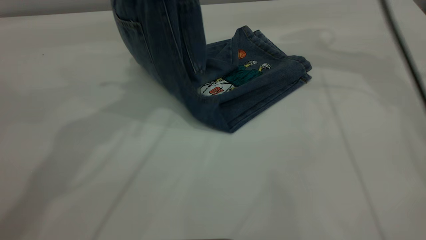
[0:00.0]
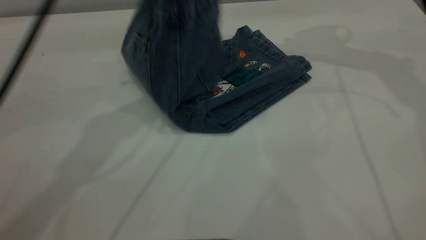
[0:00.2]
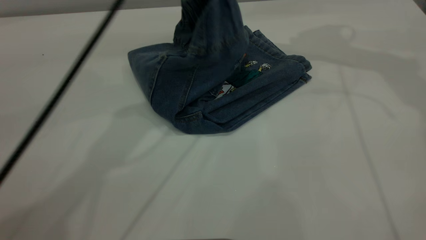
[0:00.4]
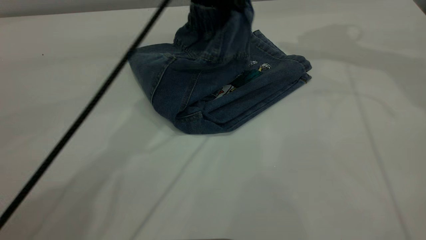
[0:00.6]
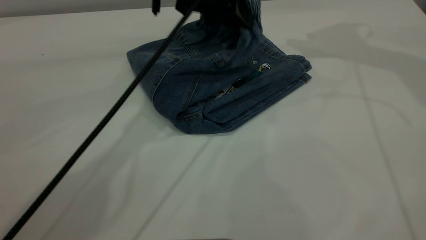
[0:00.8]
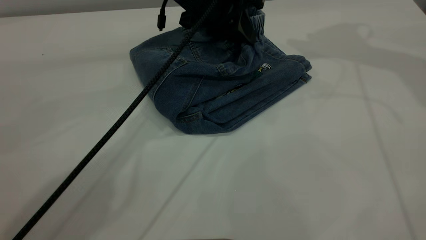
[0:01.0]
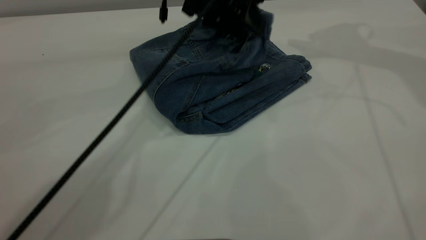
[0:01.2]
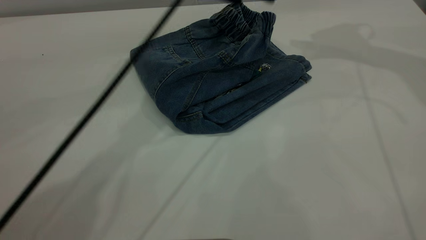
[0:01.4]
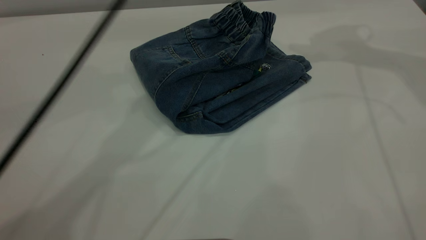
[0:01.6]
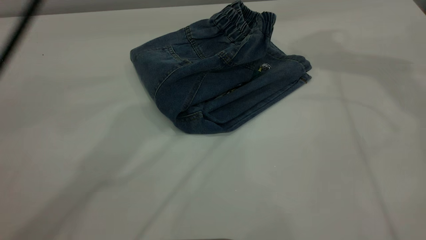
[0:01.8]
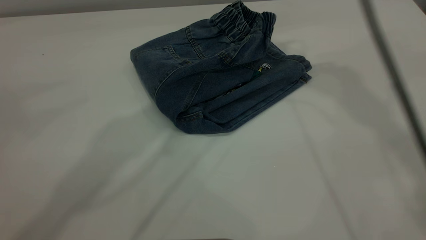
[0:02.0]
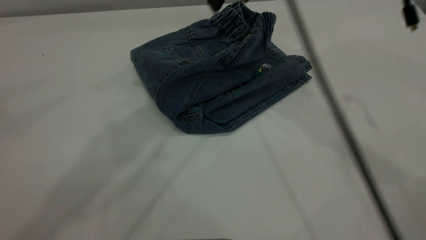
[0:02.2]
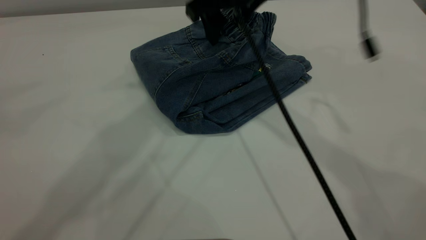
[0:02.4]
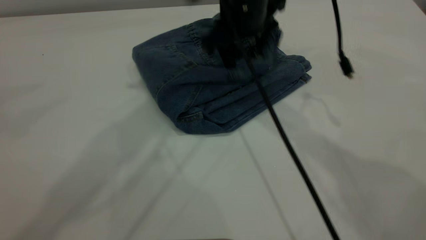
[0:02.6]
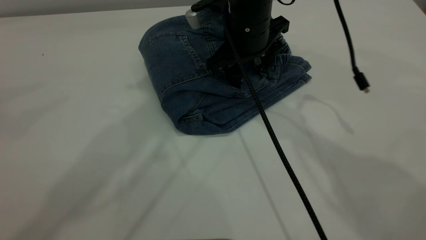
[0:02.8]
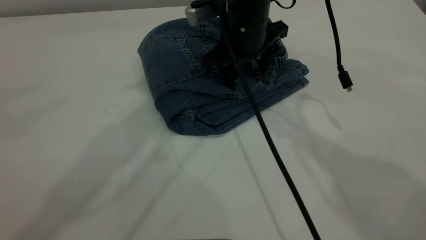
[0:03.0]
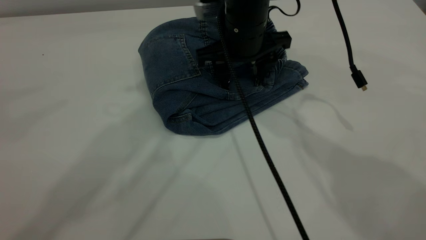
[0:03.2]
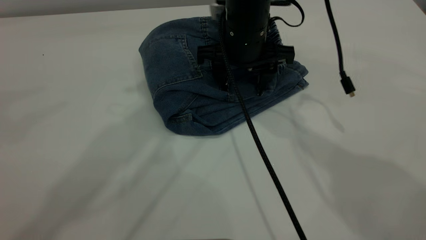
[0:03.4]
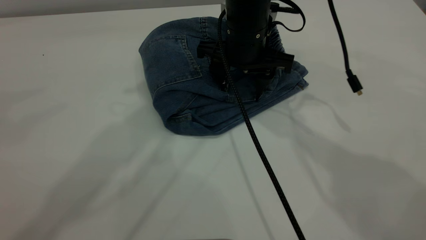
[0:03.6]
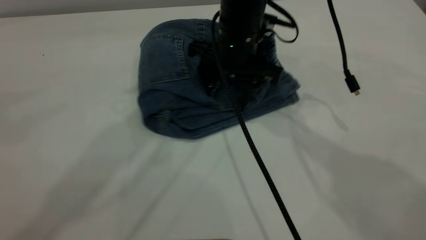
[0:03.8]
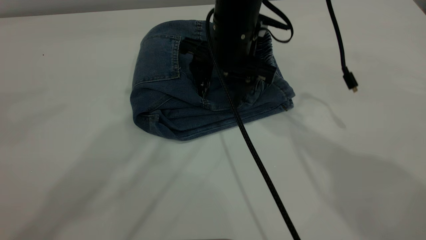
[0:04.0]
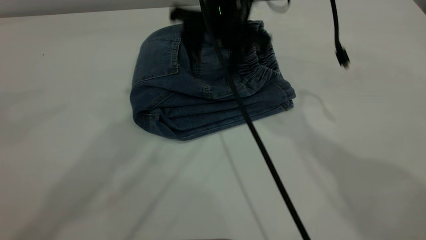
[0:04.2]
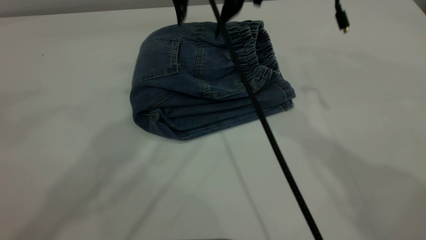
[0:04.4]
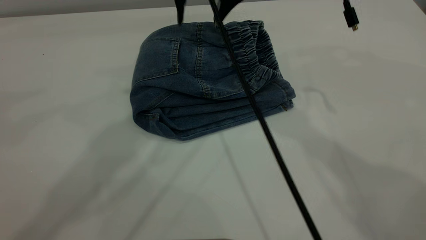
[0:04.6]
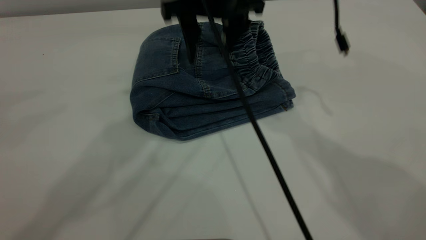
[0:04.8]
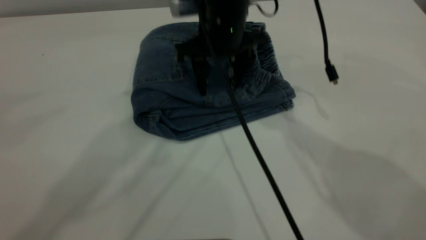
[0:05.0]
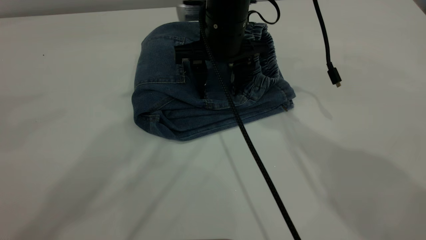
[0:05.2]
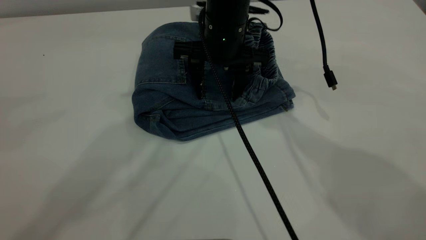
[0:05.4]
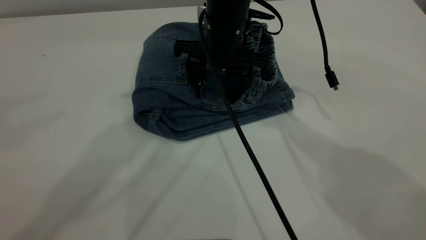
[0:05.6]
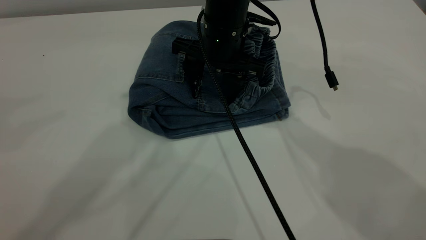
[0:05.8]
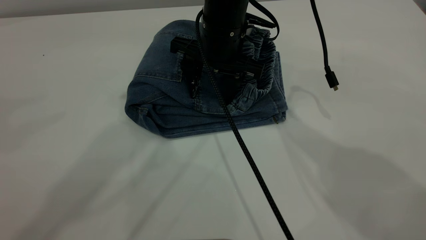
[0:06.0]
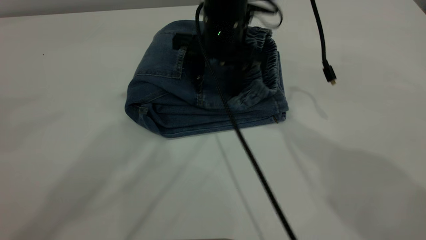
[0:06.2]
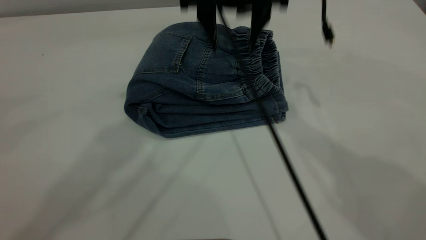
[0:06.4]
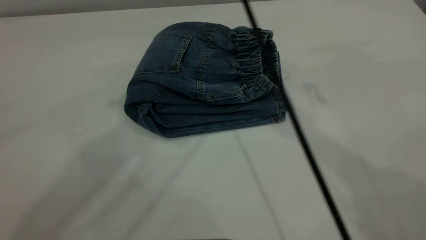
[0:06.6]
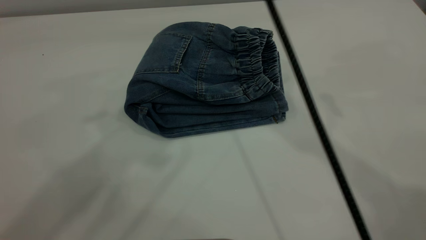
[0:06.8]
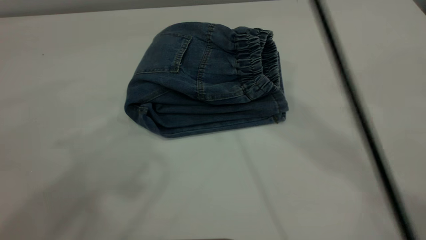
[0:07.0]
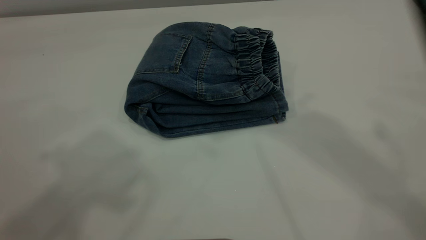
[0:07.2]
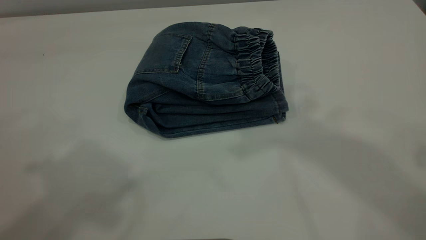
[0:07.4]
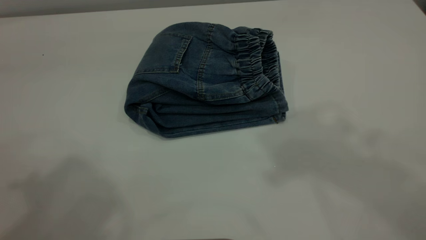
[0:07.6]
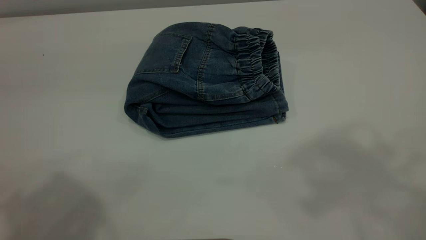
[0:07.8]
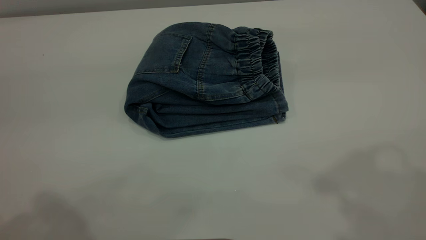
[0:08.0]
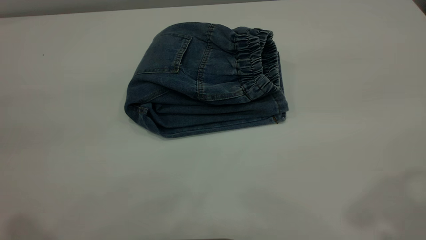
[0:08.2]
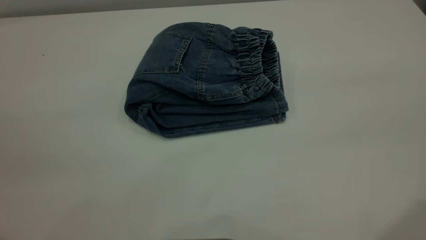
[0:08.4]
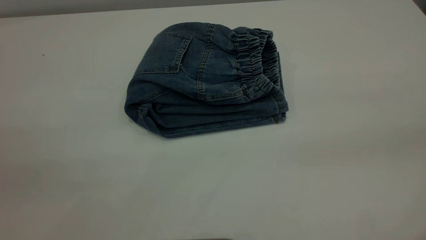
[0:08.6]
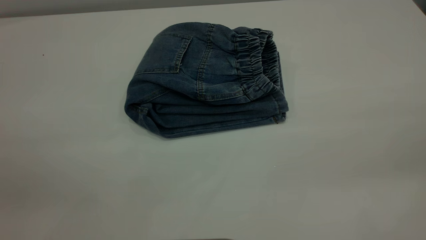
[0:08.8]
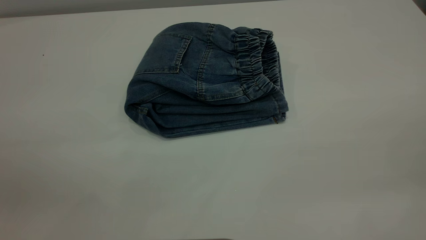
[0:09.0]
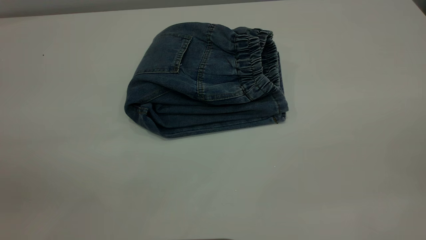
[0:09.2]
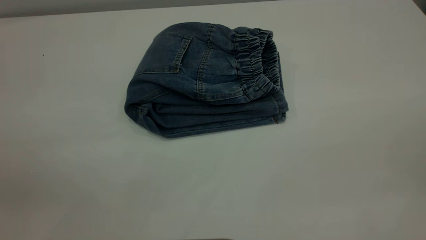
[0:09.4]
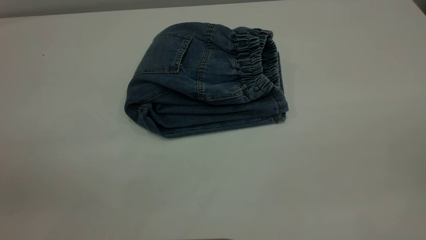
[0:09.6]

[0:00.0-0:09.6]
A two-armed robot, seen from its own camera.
0.0 to 1.6 s: The left gripper moves to the right, some 10 cm, moves about 15 cm downward and comes back, and opens, while the right gripper ends up some 5 cm from where it was.
1.6 to 3.2 s: The right gripper travels to the left and downward by roughly 25 cm. Meanwhile the left gripper moves upward, to the left and backward, some 10 cm.
4.8 to 6.4 s: The right gripper heads upward, covering approximately 5 cm.
6.4 to 8.0 s: The right gripper moves backward, upward and to the right, approximately 35 cm, while the left gripper travels backward and to the left by roughly 25 cm.

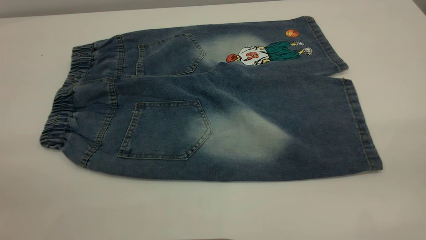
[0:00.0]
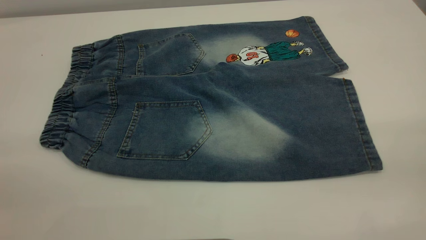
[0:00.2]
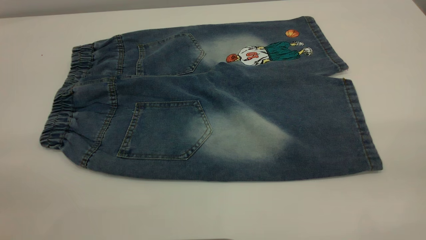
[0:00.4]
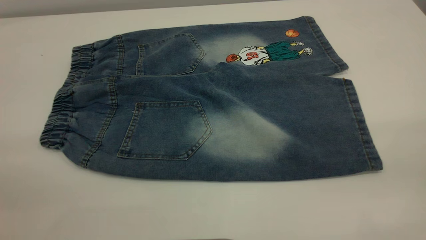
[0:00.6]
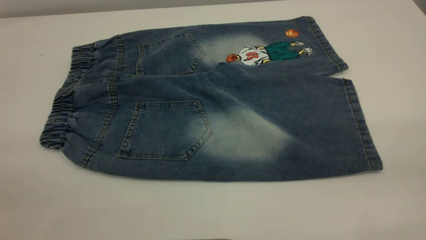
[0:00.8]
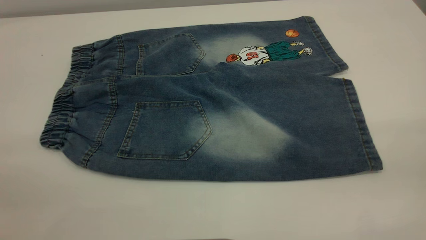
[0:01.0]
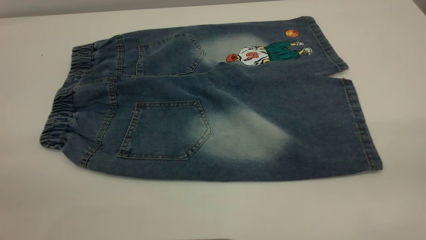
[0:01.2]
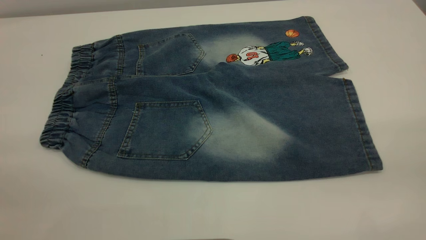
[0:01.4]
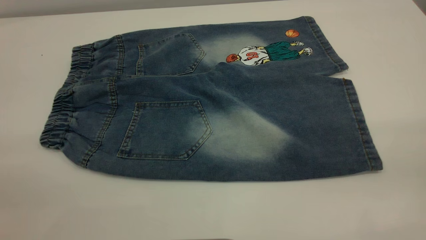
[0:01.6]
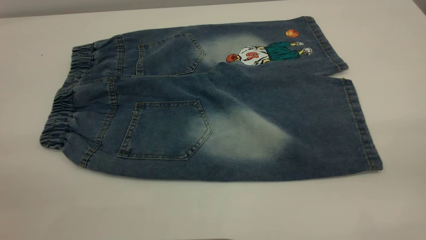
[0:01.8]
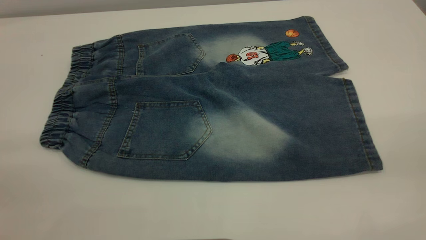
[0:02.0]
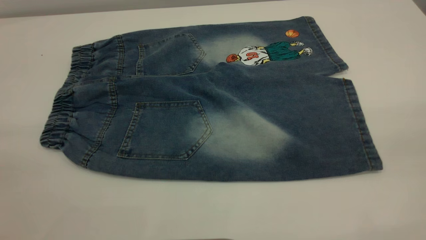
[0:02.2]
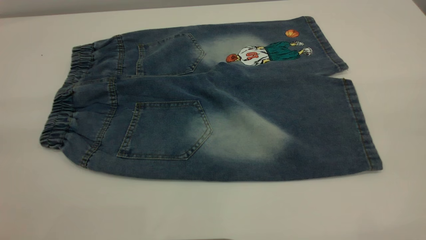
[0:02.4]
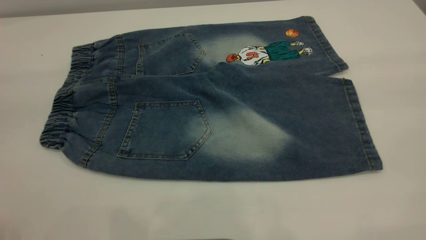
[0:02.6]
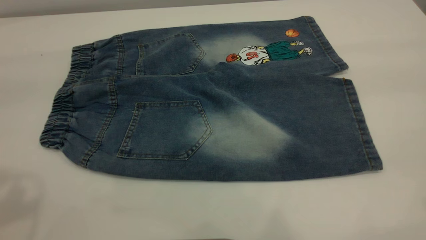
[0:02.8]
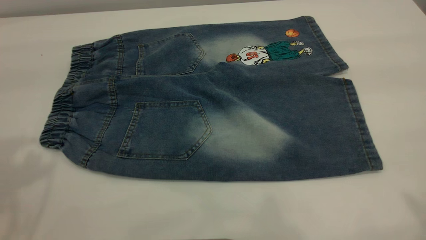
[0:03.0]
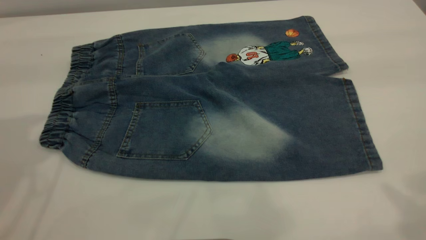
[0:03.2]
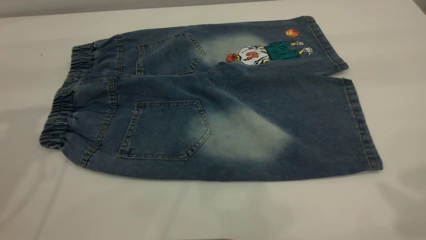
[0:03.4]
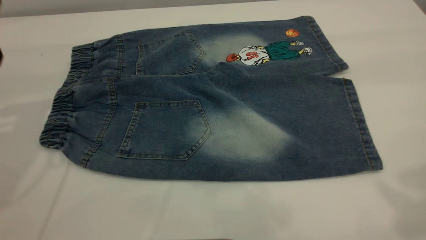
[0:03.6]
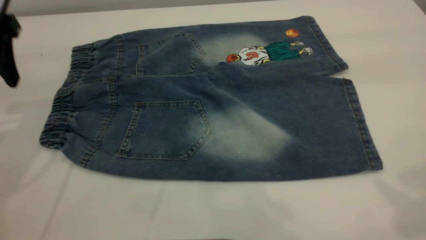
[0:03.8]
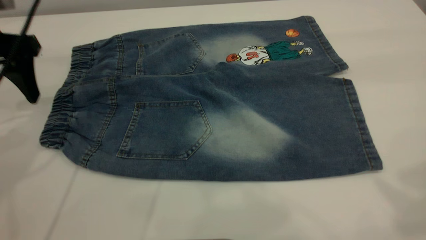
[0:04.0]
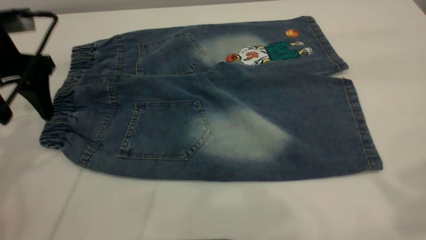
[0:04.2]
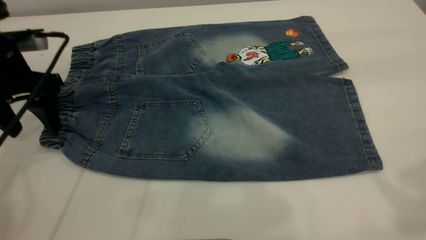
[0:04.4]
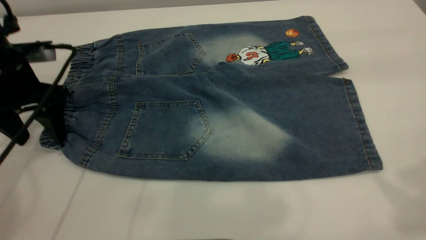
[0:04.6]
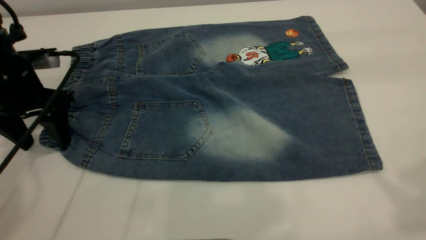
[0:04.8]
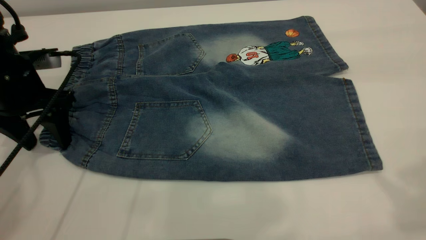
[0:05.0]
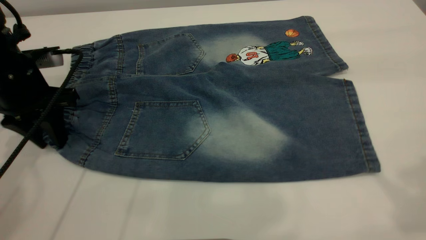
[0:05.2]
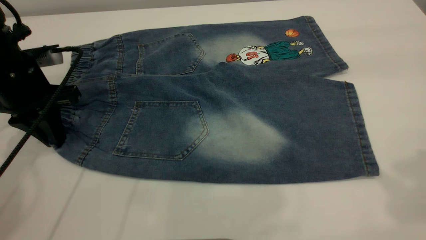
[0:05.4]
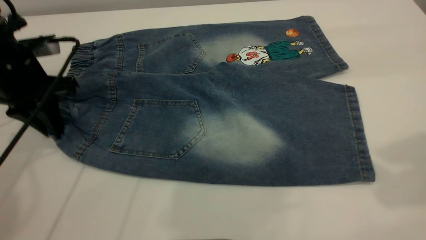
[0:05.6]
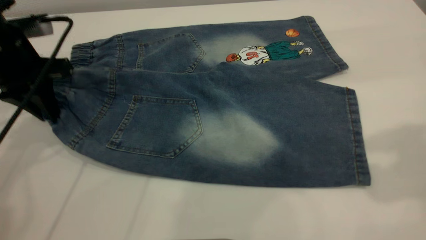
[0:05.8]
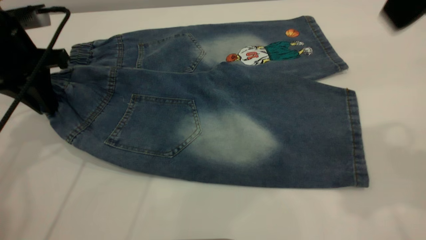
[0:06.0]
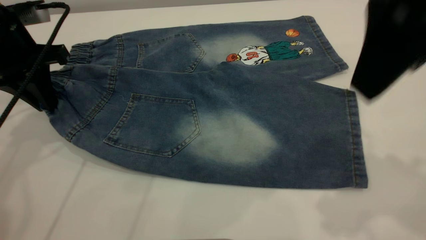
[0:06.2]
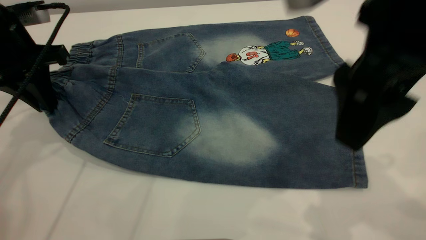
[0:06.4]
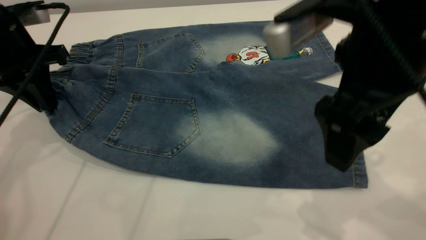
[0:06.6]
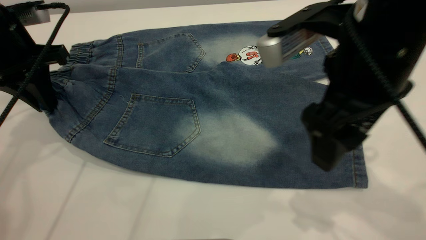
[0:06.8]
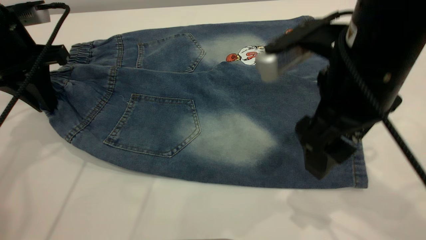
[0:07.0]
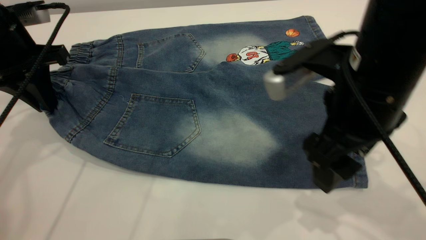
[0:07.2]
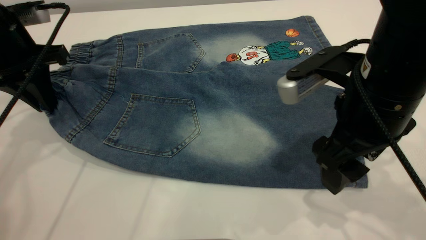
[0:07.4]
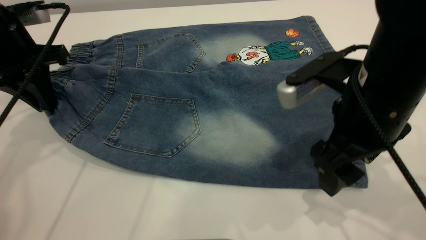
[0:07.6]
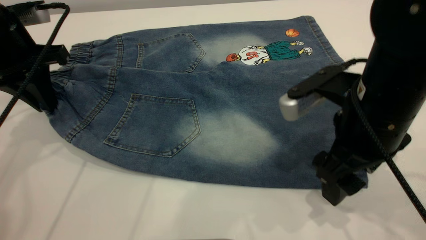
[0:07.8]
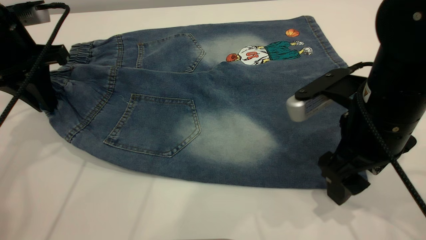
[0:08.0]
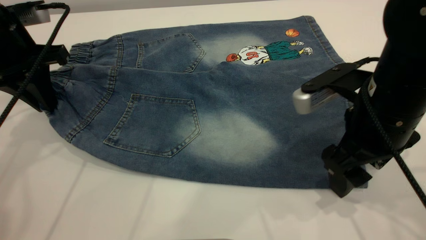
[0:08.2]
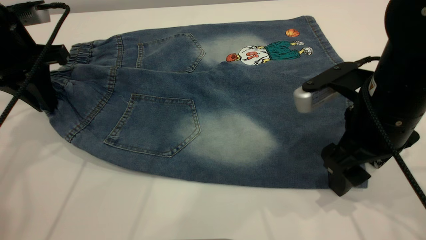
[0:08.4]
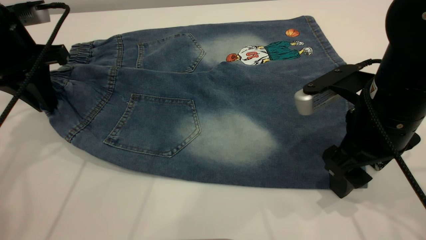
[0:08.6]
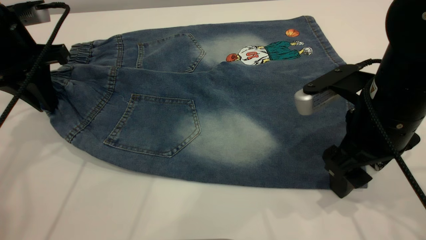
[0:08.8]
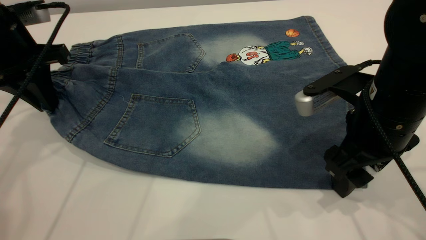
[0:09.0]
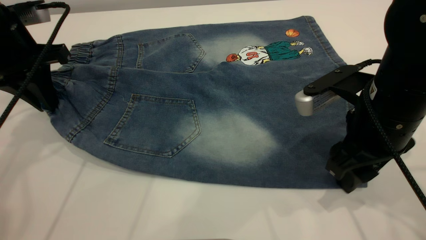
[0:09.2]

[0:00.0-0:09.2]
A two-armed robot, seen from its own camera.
0.0 to 1.6 s: Neither gripper changes place.
3.0 to 4.6 s: The left gripper goes some 25 cm downward and forward.
4.6 to 6.2 s: The left gripper moves approximately 5 cm, and closes, while the right gripper heads downward, to the left and forward, covering approximately 15 cm.
6.2 to 7.6 s: The right gripper moves downward, some 15 cm.
7.6 to 9.2 s: The right gripper closes.
